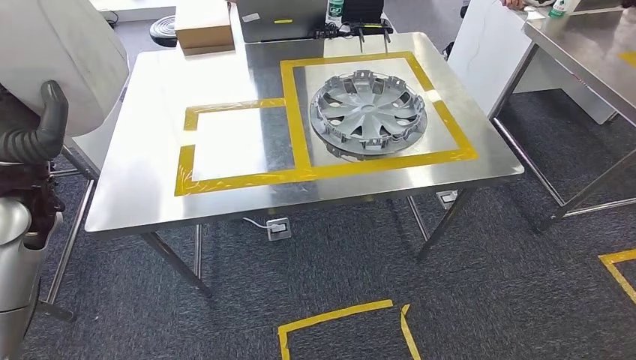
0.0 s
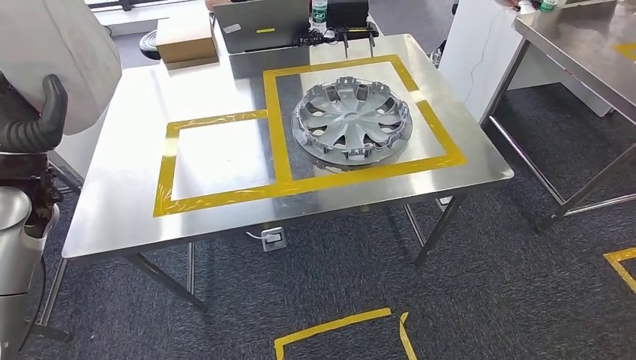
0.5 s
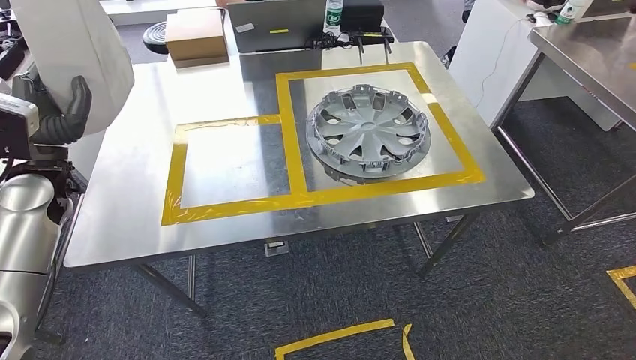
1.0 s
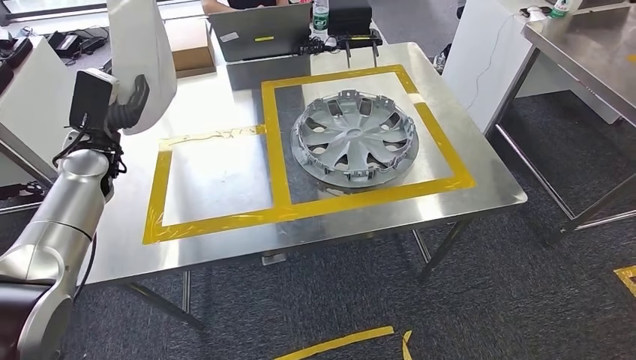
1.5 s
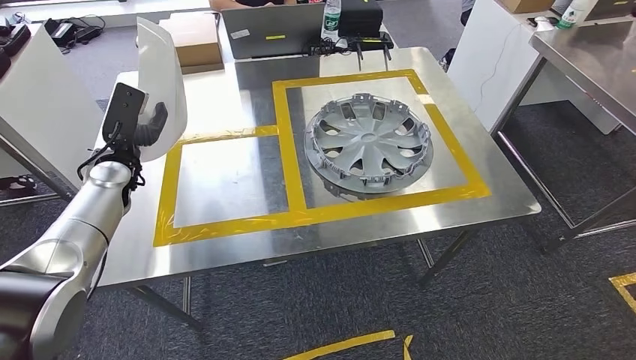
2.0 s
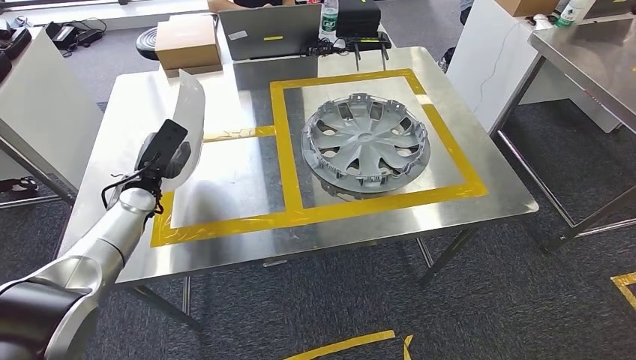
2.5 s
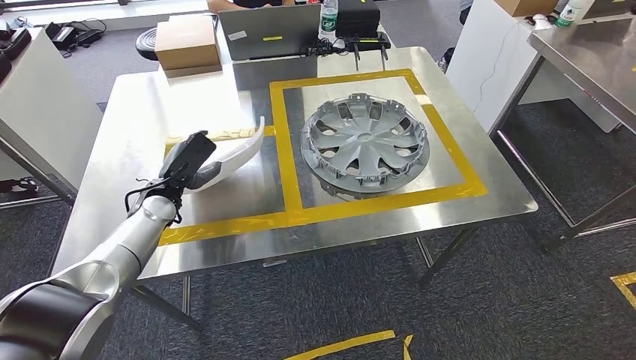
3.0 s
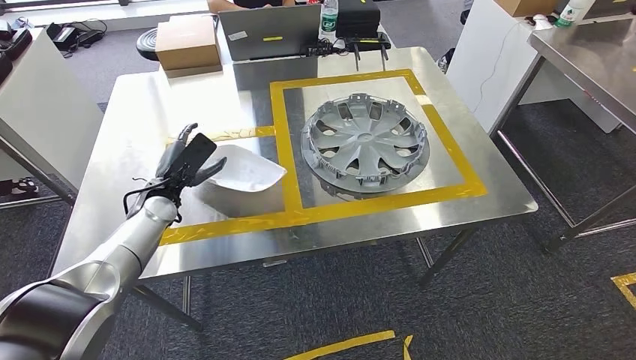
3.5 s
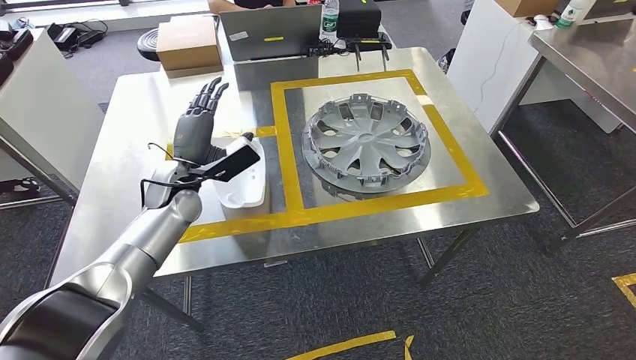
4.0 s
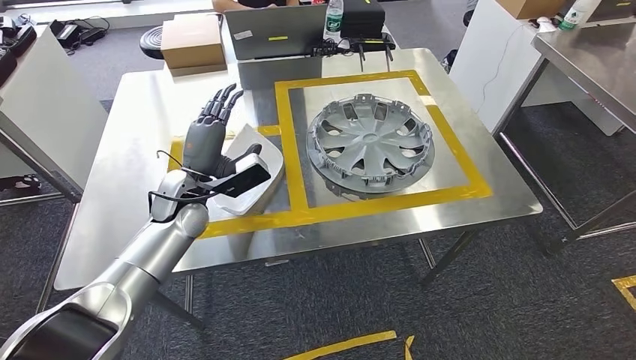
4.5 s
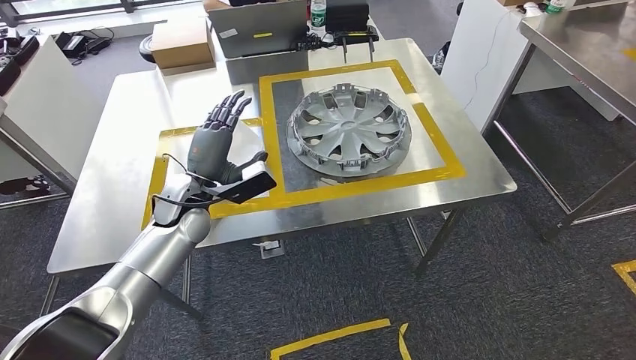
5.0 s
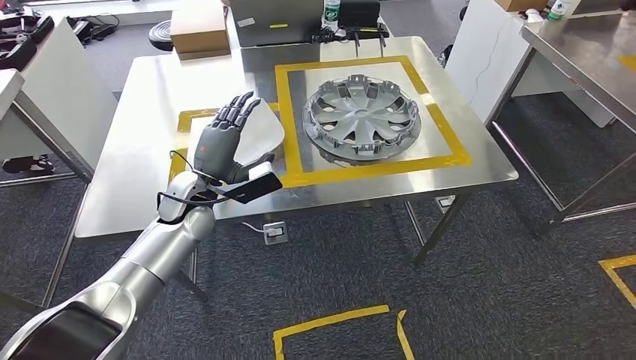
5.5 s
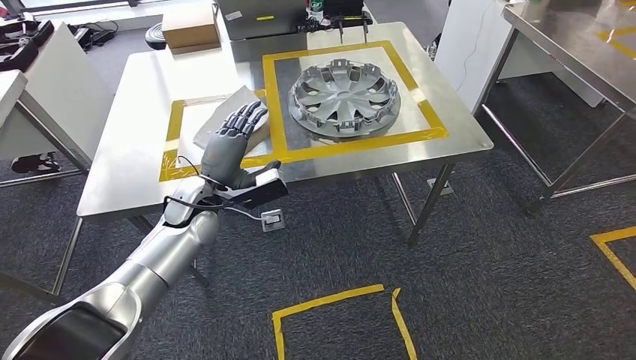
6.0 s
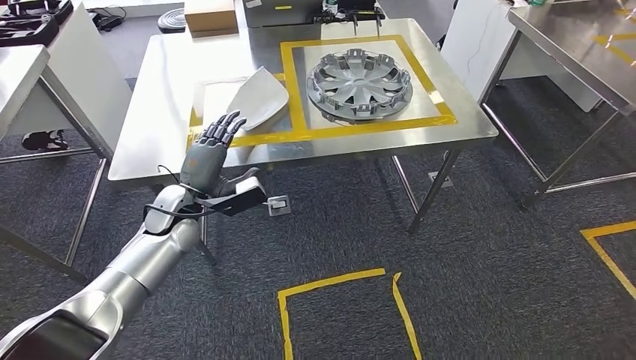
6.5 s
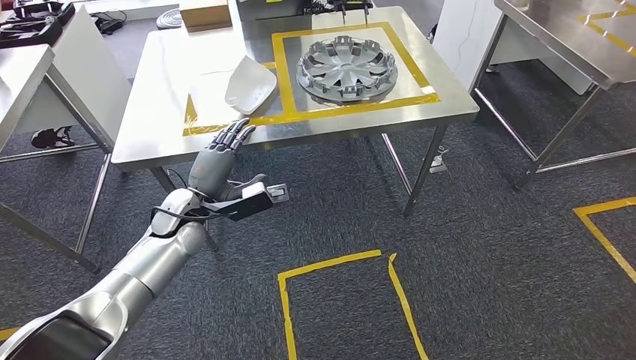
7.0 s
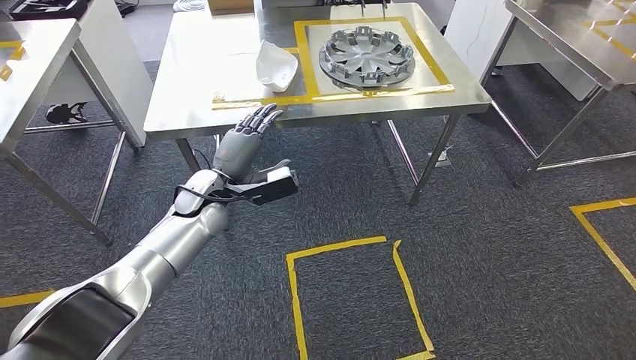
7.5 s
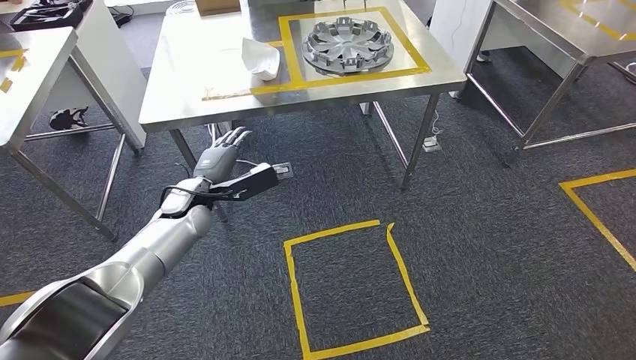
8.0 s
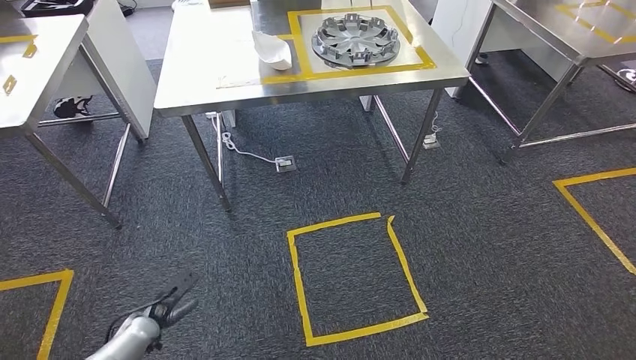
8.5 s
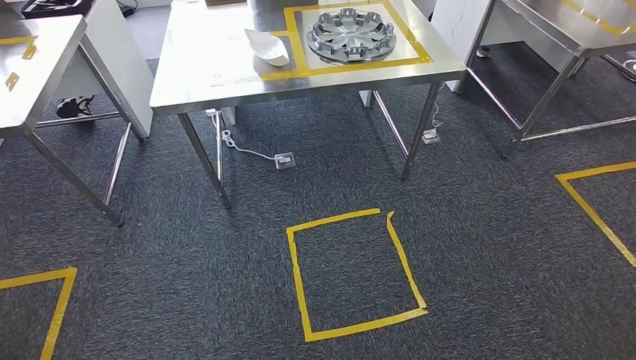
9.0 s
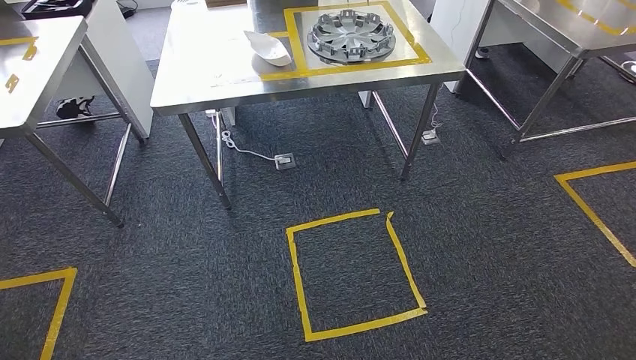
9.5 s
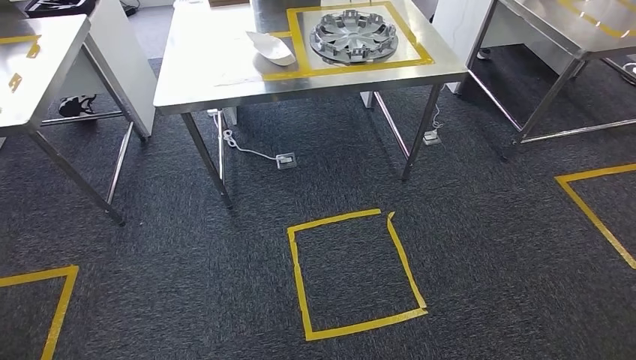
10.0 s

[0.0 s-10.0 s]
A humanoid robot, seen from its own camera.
Step, 2.0 to 4.0 s: Insert the large material into the corresponding slot on the workbench.
Step, 4.5 to 10.0 s: Move to the initial position of the shelf.
